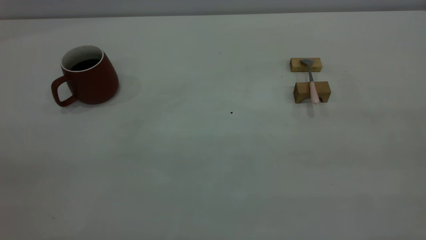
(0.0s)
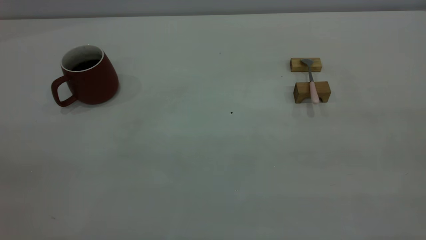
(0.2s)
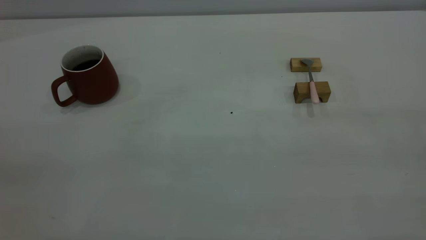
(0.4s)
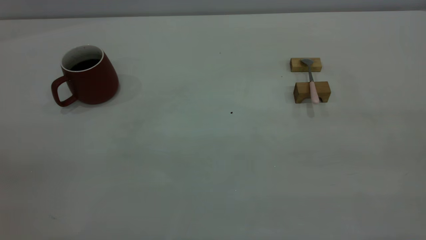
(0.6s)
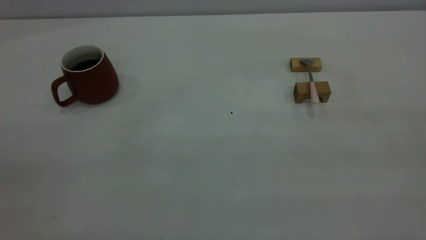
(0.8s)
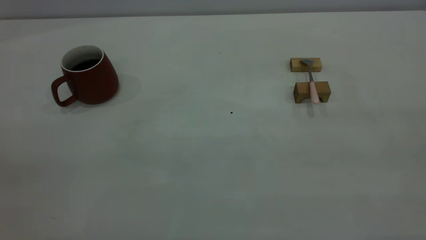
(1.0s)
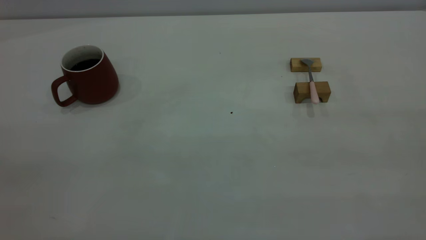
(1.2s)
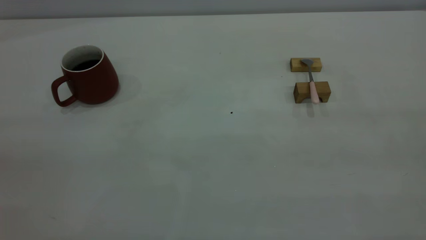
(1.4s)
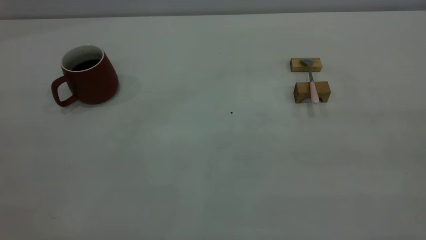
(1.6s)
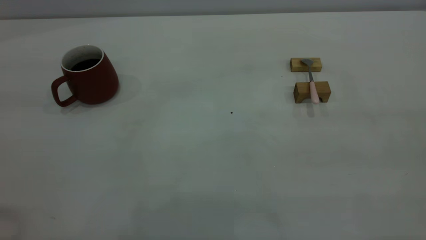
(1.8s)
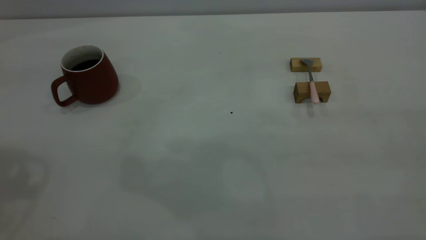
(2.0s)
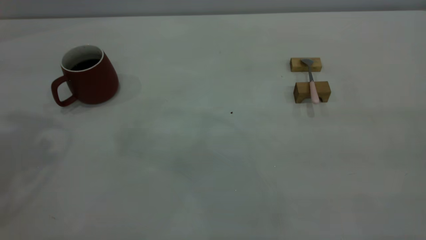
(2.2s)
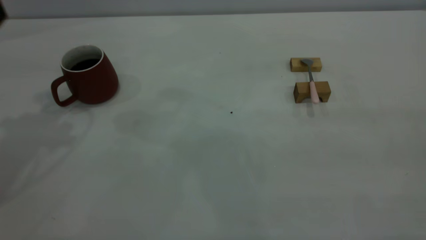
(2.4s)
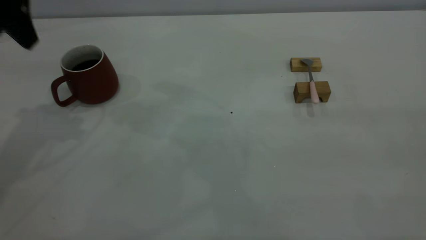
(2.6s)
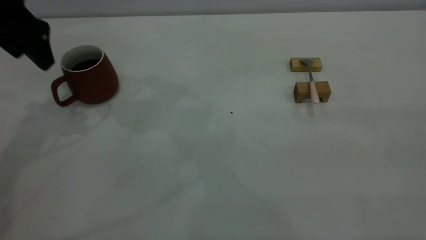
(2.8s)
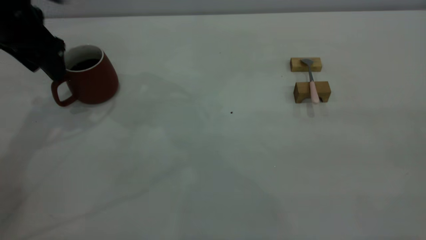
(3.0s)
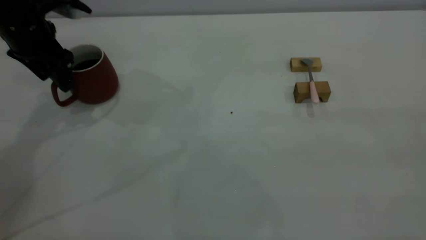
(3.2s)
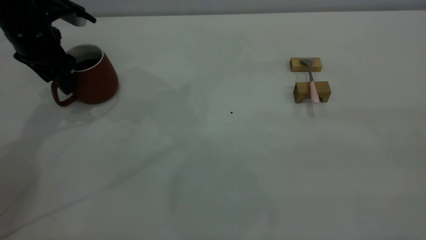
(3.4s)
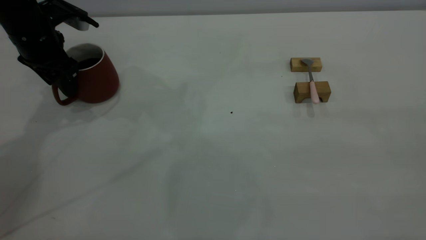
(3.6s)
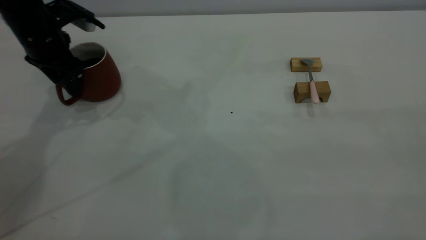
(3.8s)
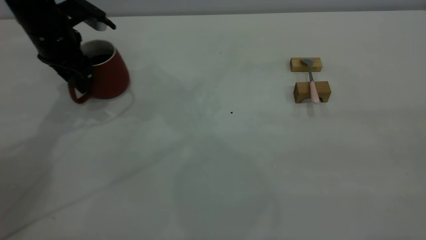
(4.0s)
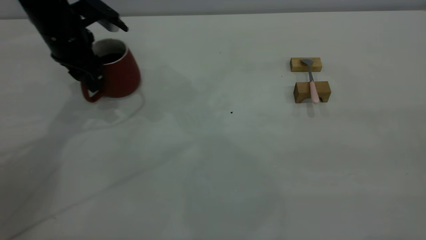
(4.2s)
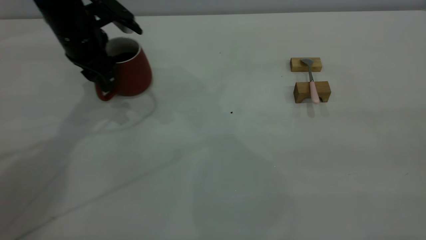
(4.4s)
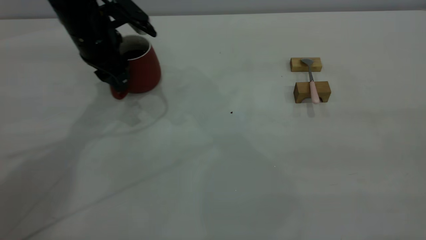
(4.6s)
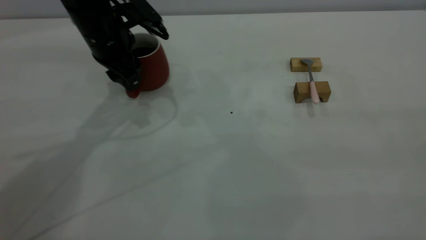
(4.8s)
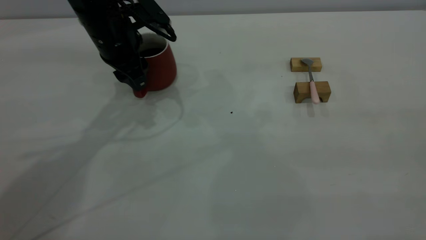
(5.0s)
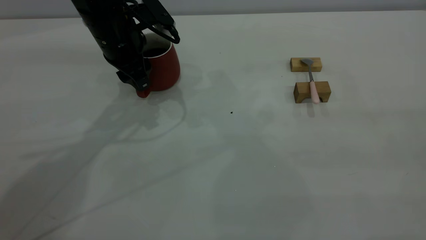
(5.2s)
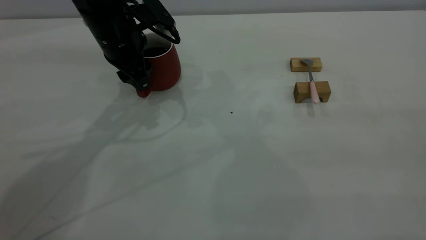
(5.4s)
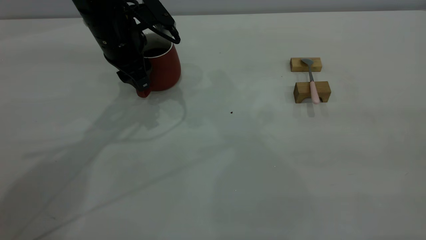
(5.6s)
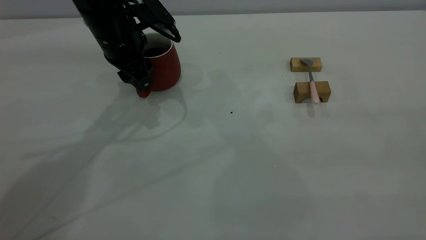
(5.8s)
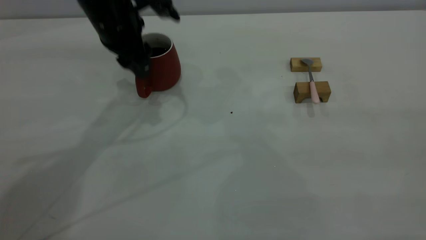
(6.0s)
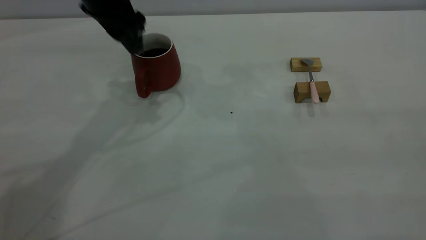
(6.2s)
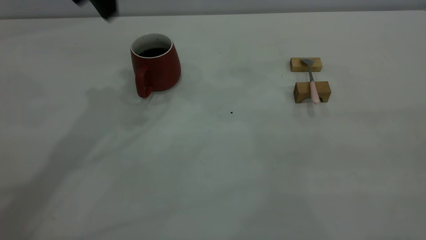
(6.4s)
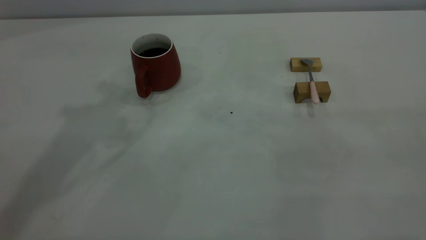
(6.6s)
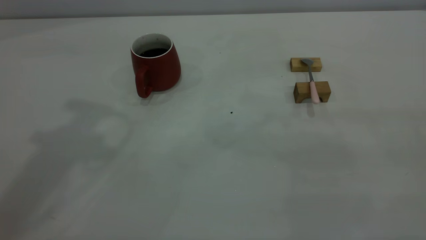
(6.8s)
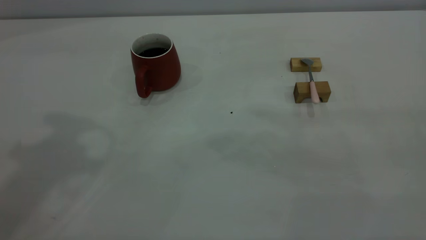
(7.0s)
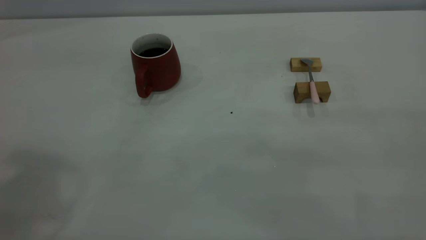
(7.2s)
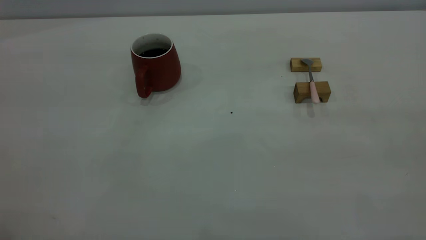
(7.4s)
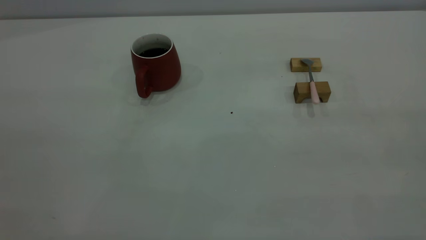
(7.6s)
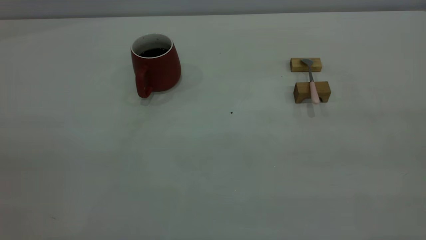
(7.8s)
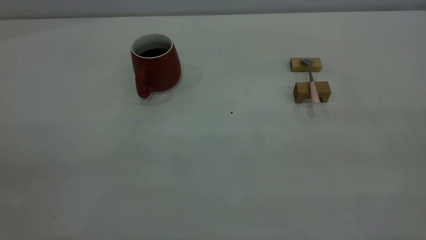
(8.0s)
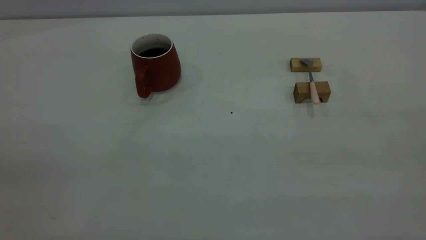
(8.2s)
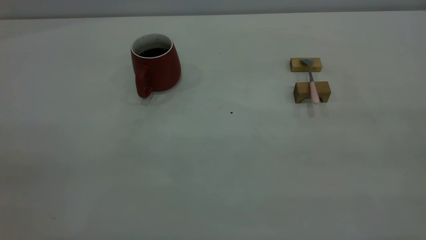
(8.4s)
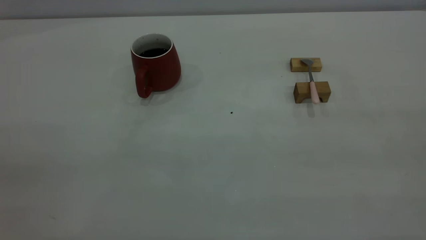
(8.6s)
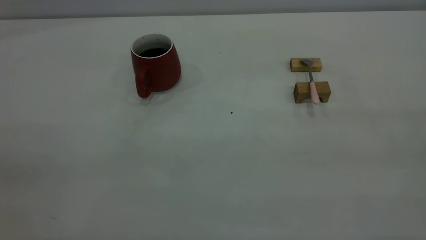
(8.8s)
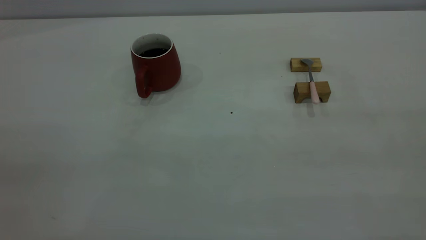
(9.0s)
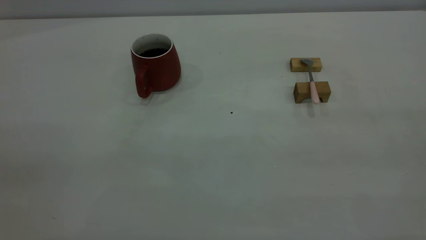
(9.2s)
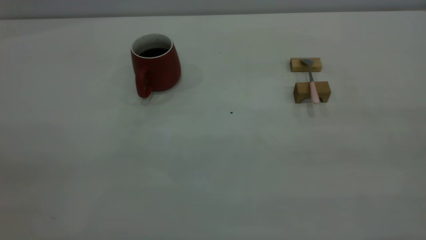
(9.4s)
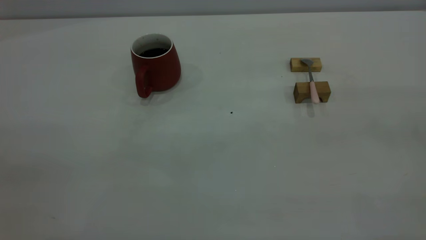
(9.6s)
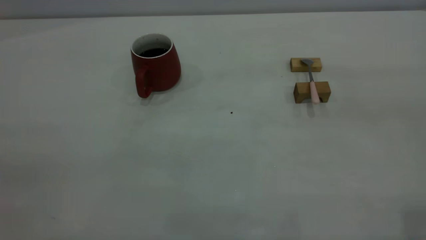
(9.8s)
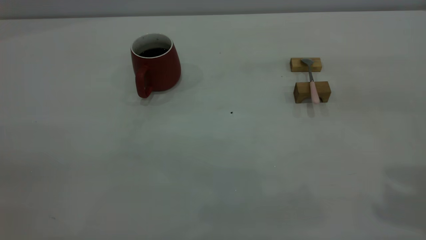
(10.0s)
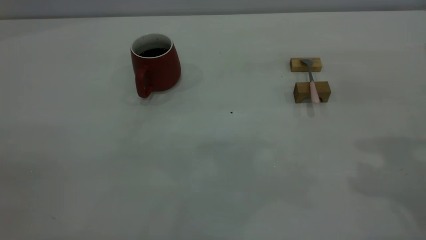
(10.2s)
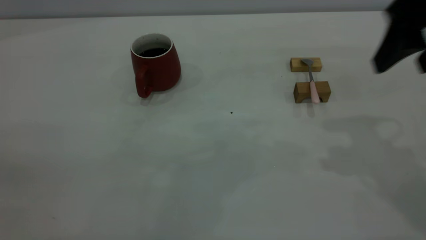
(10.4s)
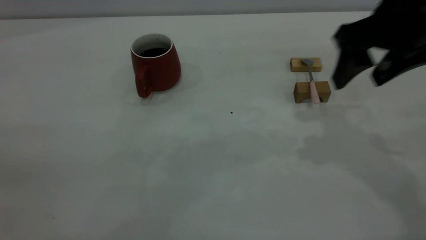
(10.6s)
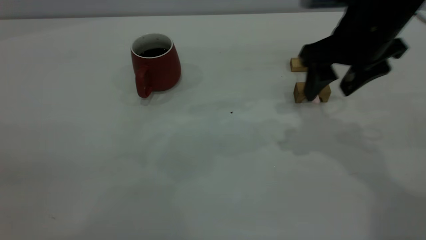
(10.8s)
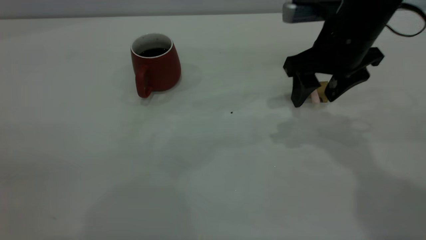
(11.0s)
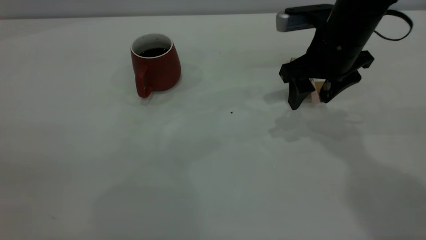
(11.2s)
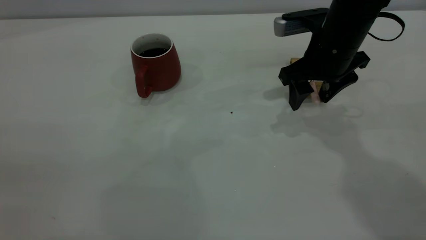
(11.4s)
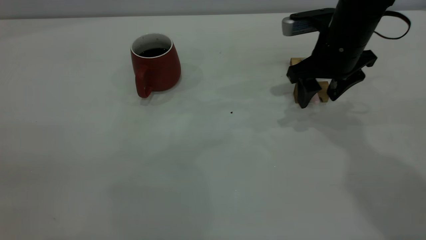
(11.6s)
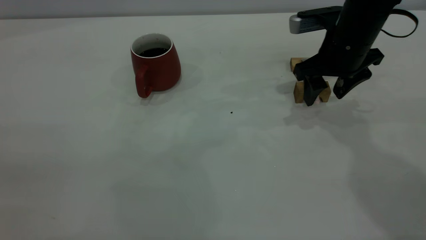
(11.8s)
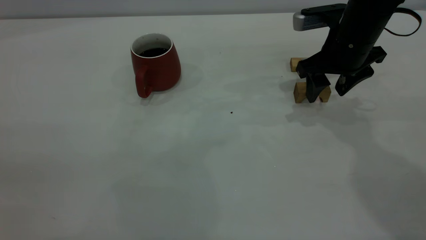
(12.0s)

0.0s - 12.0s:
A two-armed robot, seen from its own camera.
Step, 0.0s - 6.2s: Move the cup with coffee to the center of view.
1.6s - 3.0s: The left gripper is displaced forward and downward by roughly 40 cm, and opens.
3.0s - 4.4s: The left gripper travels to the right by roughly 10 cm, and closes up.
4.4s - 6.0s: The left gripper goes approximately 5 cm to the right.
6.0s - 7.6s: The left gripper moves backward and upward, approximately 50 cm, and closes.
9.0s - 10.4s: The right gripper is displaced forward by some 30 cm, and opens up.
10.4s - 12.0s: The right gripper is displaced downward and forward by roughly 15 cm.

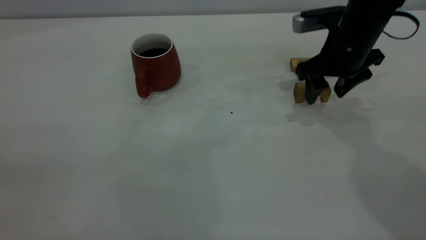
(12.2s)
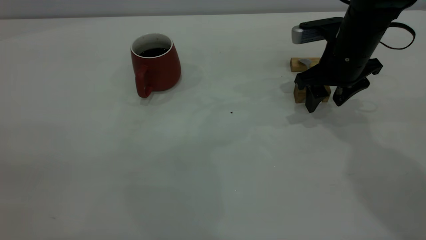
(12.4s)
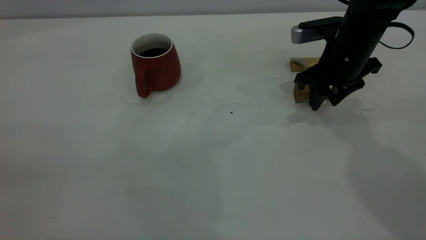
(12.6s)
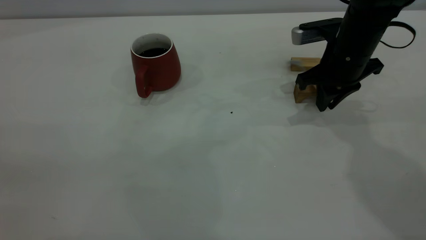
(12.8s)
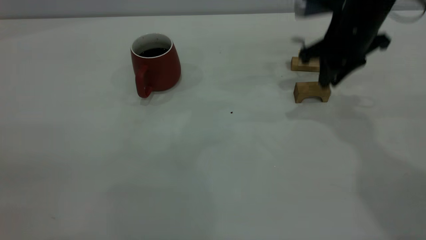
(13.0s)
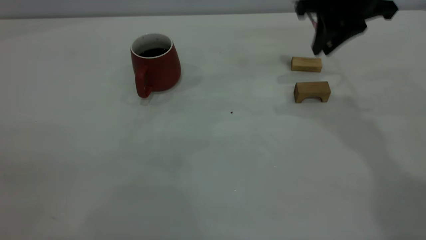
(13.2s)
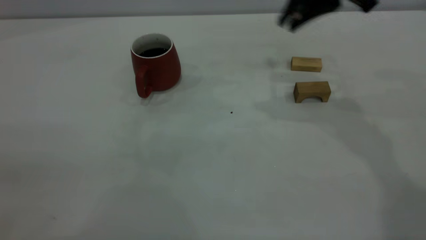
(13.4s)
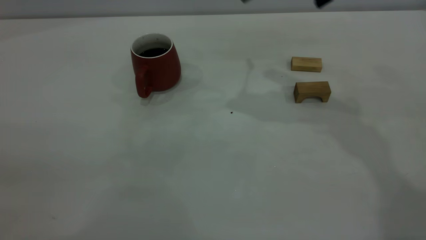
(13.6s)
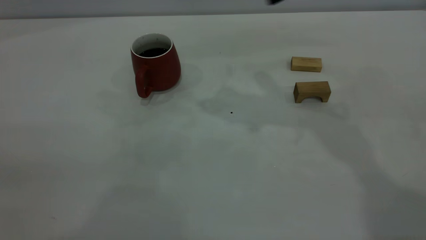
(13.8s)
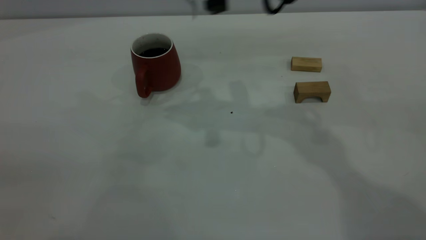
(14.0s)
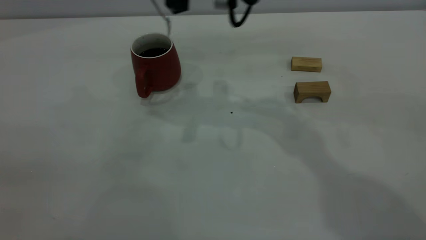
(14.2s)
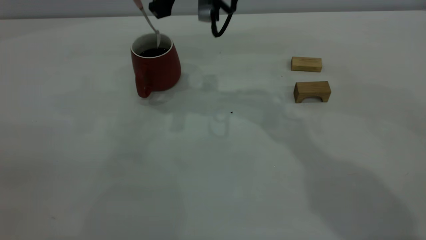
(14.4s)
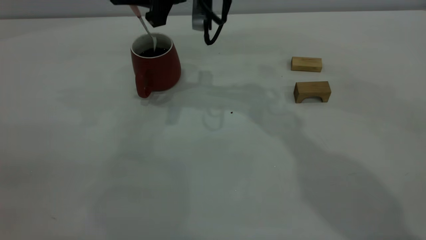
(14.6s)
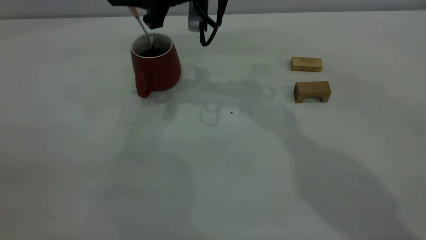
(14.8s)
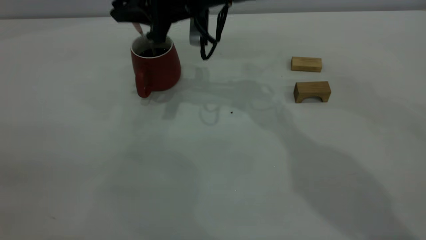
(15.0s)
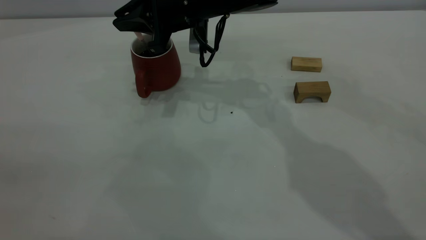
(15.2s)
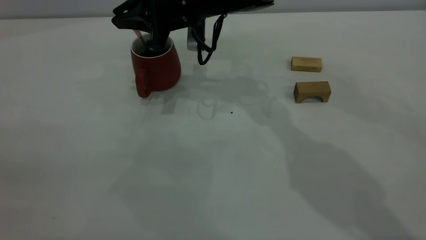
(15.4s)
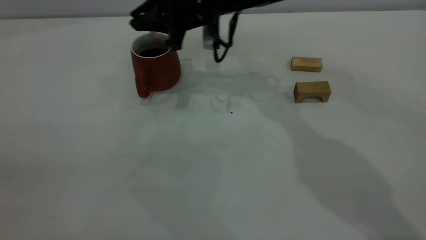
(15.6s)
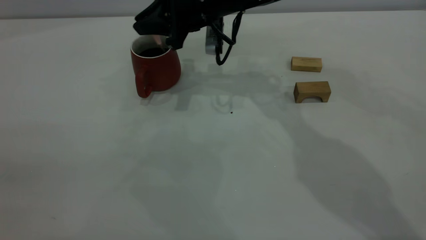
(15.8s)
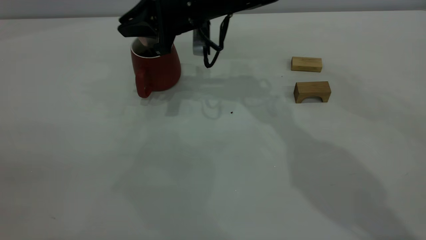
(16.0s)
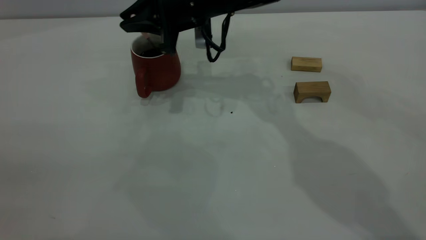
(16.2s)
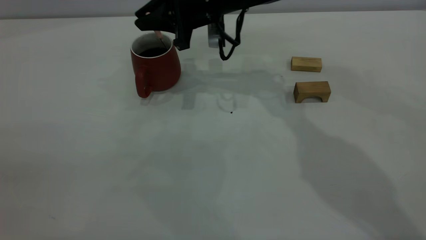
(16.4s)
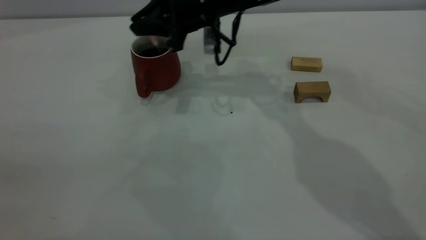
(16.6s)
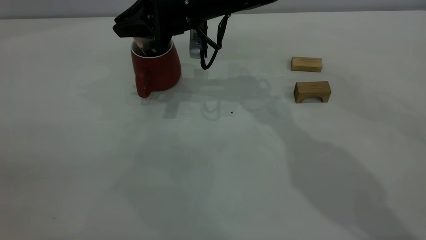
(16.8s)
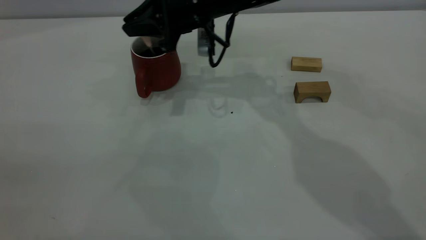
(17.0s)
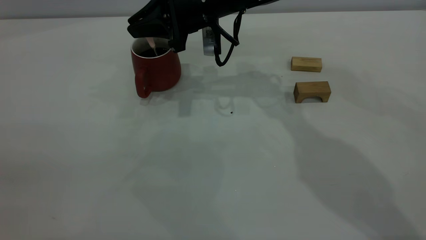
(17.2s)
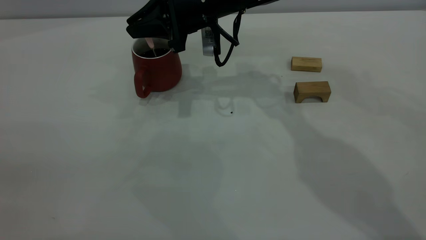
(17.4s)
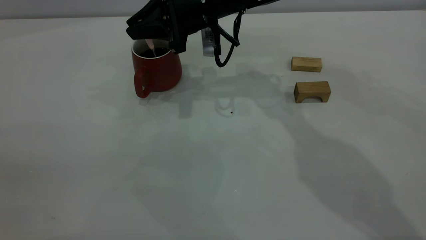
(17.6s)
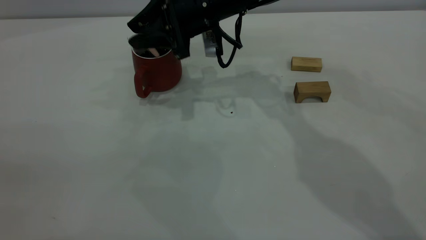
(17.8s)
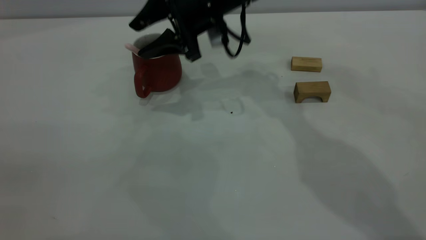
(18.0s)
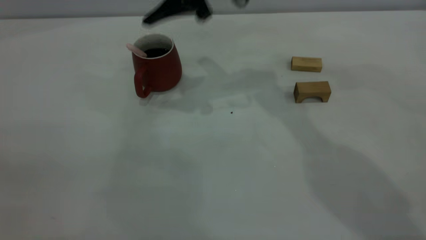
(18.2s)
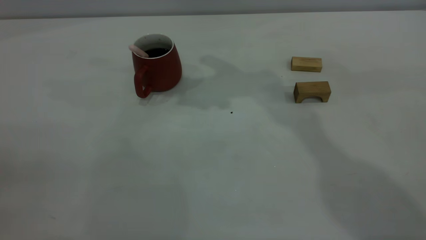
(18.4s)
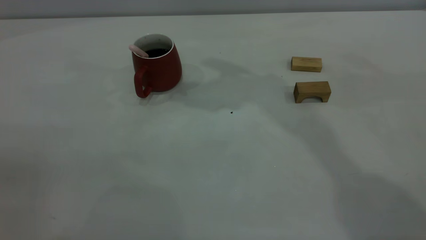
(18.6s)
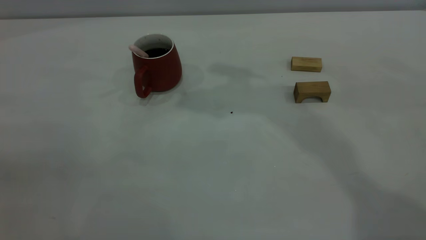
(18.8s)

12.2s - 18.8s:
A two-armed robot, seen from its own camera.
Step, 13.2s - 18.0s: Stir the coffee in the cup.
12.2s - 13.8s: The right gripper goes approximately 20 cm upward and to the left, and closes up.
13.8s - 15.4s: The right gripper moves downward, to the left and forward, about 20 cm.
15.4s - 17.2s: There are only small adjustments of the grippers.
17.2s - 18.8s: The right gripper travels upward by approximately 30 cm, and opens, then closes again.
